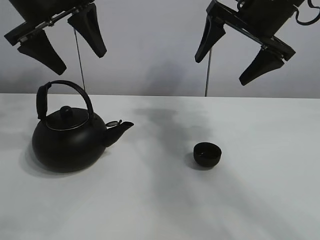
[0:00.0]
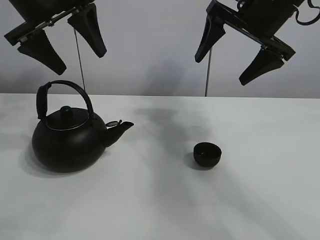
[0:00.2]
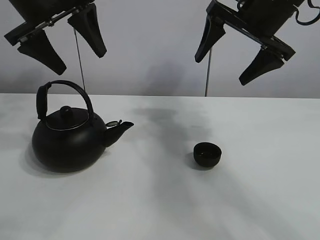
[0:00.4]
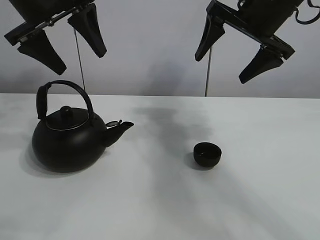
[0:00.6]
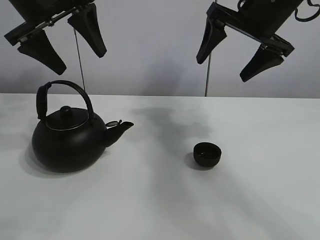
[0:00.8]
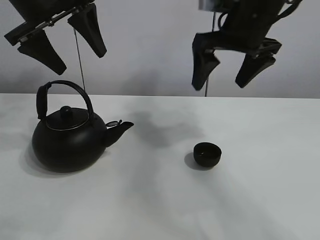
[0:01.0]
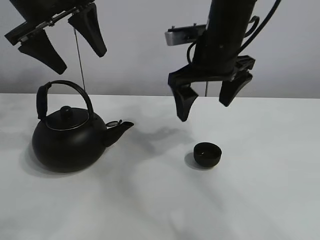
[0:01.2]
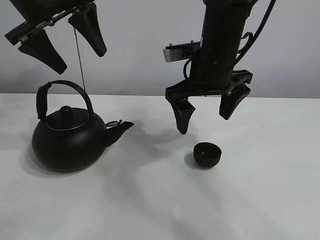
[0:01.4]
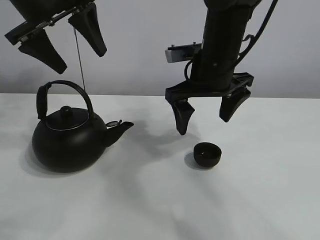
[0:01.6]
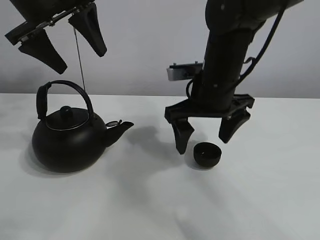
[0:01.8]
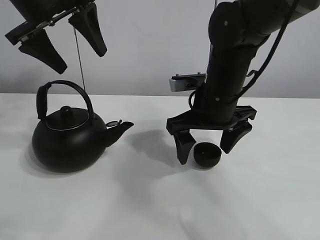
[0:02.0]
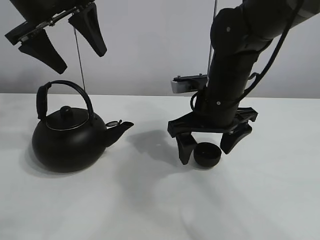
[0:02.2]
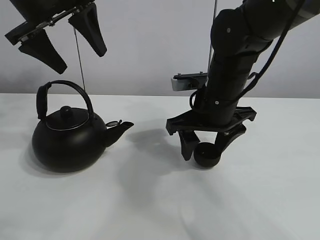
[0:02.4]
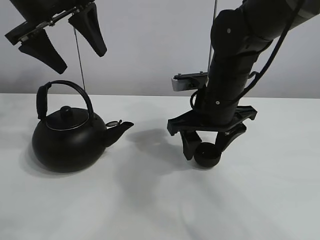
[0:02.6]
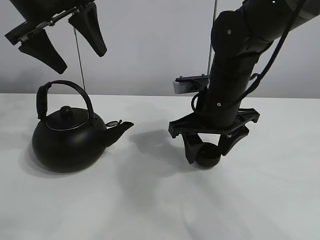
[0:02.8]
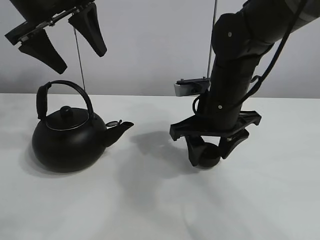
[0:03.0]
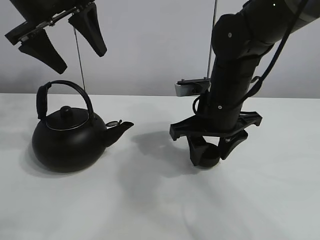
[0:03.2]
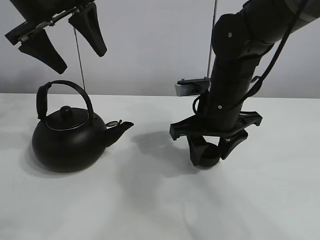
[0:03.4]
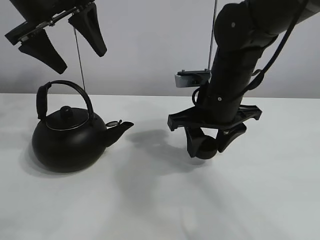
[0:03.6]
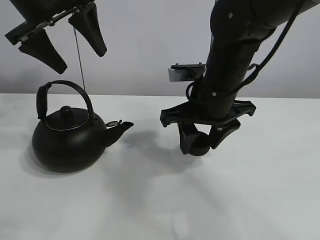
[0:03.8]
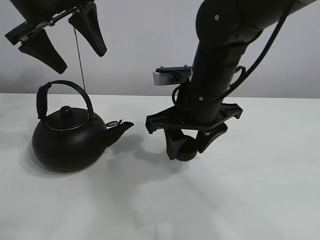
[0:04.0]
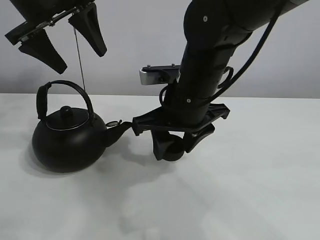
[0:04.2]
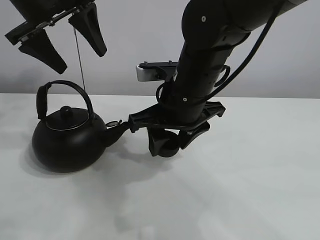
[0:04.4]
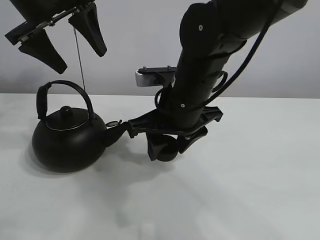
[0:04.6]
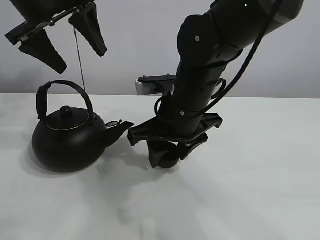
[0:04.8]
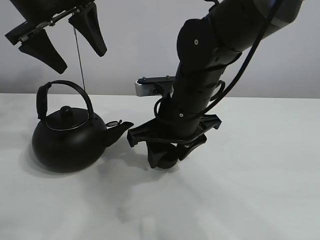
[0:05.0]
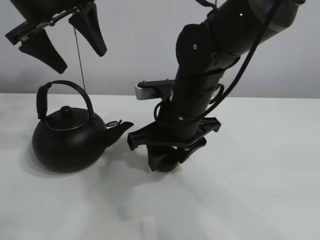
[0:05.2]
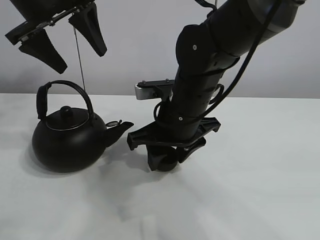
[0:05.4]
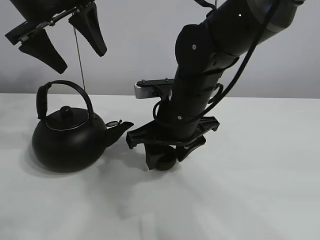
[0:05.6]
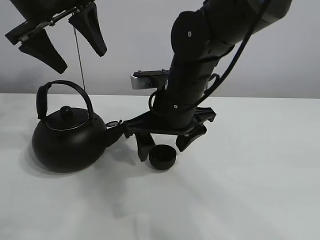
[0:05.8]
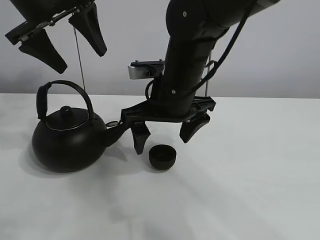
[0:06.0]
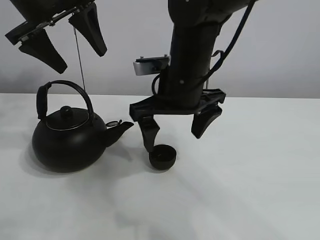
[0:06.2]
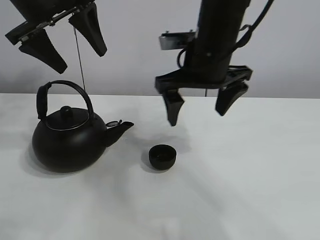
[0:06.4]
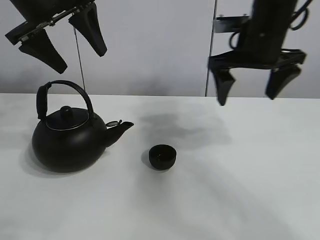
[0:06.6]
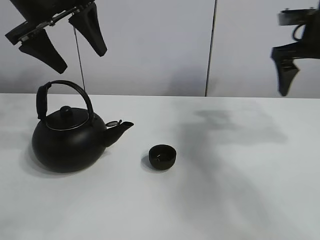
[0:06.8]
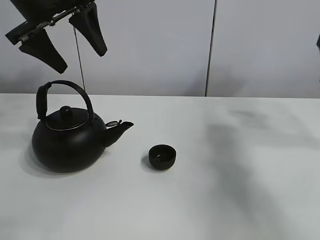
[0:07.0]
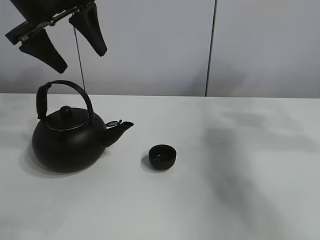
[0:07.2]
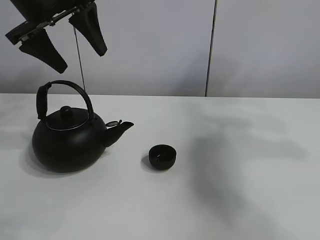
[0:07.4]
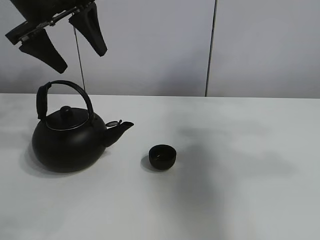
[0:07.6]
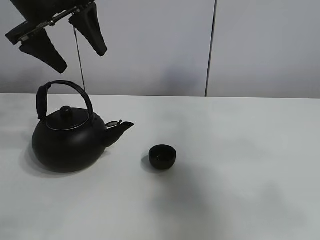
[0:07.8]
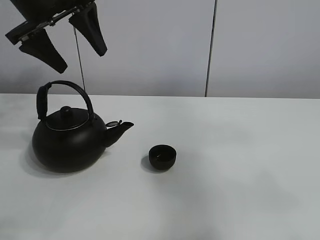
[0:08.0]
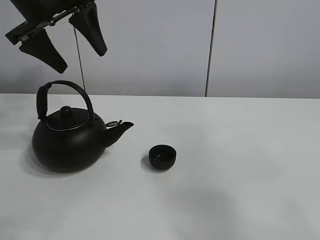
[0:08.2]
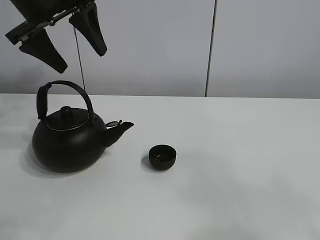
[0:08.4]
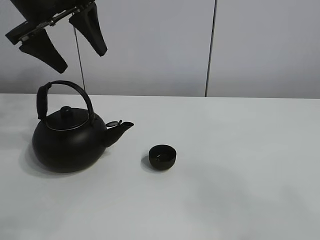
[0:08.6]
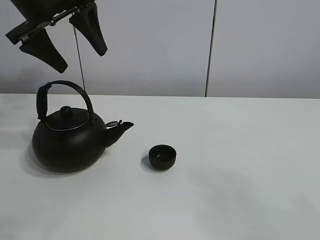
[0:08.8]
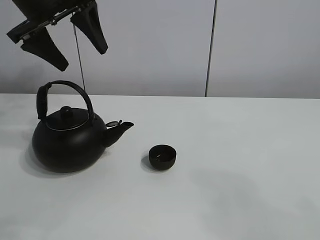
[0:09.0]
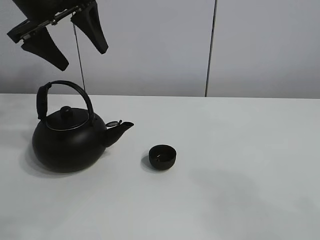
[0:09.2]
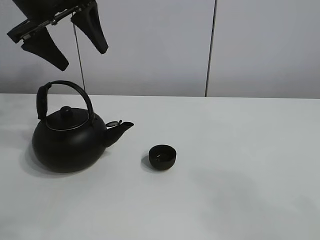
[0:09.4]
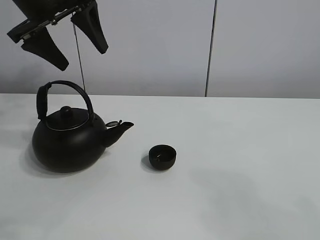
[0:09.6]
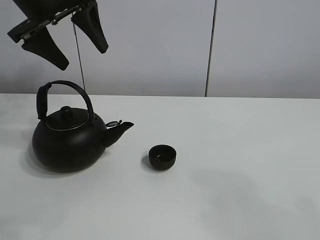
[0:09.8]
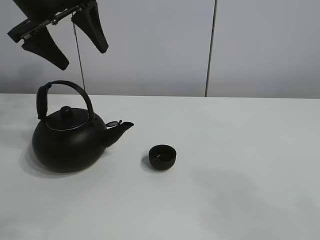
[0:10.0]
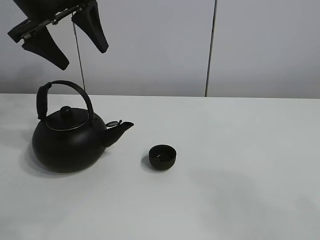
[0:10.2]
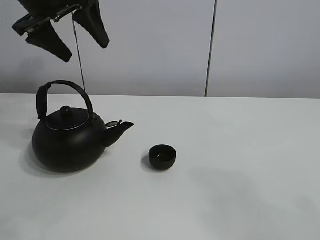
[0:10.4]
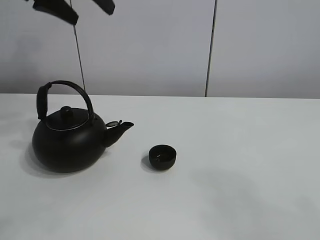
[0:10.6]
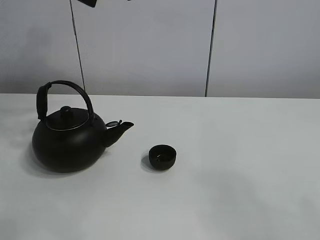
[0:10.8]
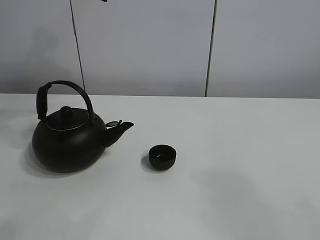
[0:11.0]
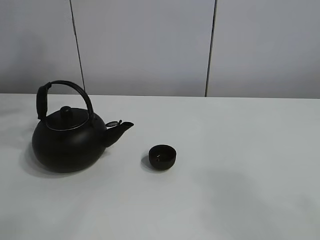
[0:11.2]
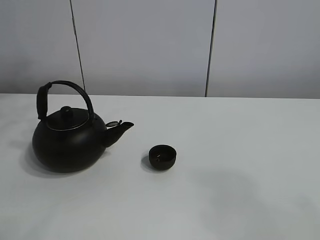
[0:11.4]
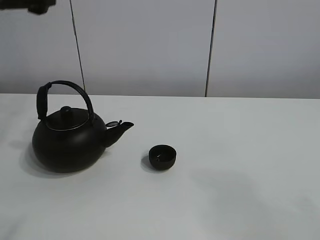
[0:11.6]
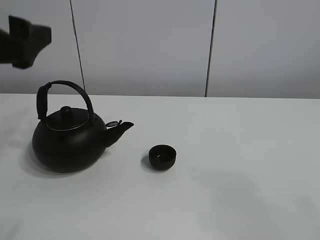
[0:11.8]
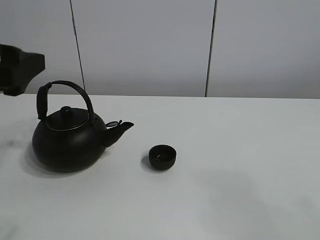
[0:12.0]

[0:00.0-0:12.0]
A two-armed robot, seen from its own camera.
Task of the whole recording: pour tea into the teacup.
Step, 0:00.0 to 0:03.4: Pick up the teacup with the right gripper.
Step, 0:03.6 to 0:05.6: Place the teacup in the center of view with the right gripper.
0:01.6 to 0:03.0: The right gripper moves downward, about 5 cm, and closes.
0:03.0 to 0:04.4: The right gripper heads to the left, covering about 5 cm.
0:04.4 to 0:06.0: The right gripper opens its fingers.
0:06.0 to 0:07.6: The right gripper travels to the right and upward by some 40 cm.
0:07.6 to 0:09.0: The right gripper heads backward and downward, covering about 30 cm.
0:09.0 to 0:10.4: The grippers stay close to where they were, moving slightly.
0:10.4 to 0:12.0: The left gripper heads backward and downward, covering some 20 cm.

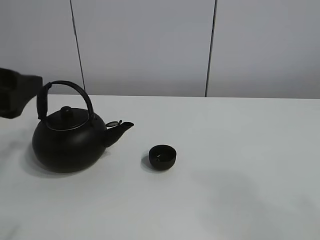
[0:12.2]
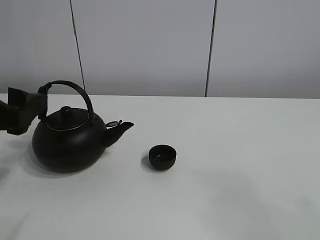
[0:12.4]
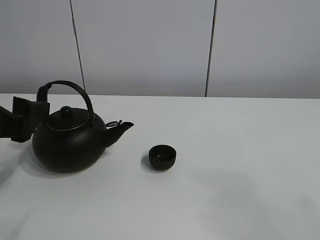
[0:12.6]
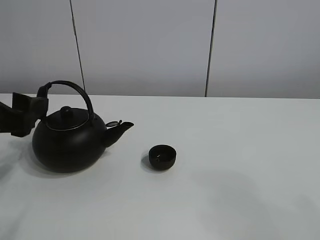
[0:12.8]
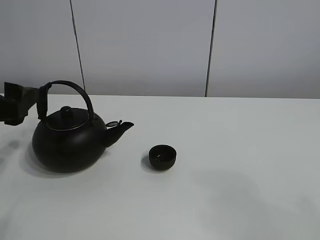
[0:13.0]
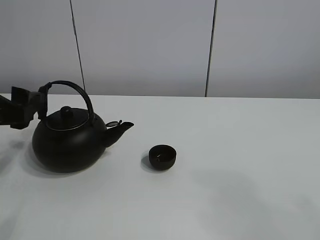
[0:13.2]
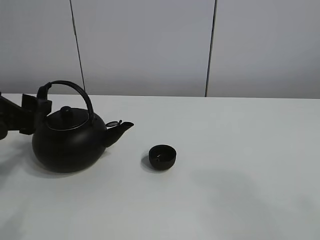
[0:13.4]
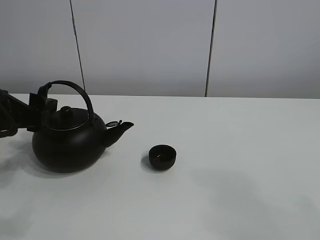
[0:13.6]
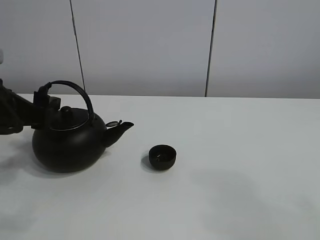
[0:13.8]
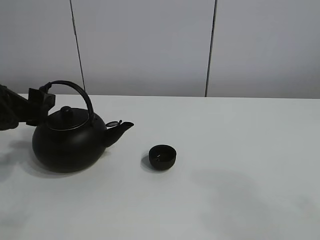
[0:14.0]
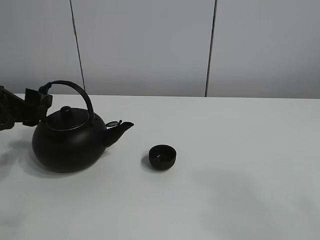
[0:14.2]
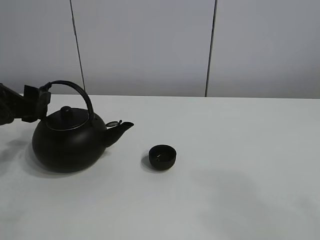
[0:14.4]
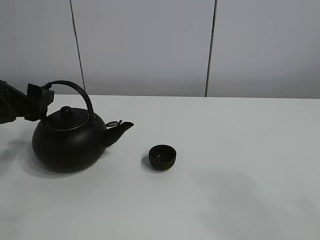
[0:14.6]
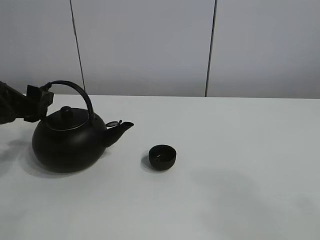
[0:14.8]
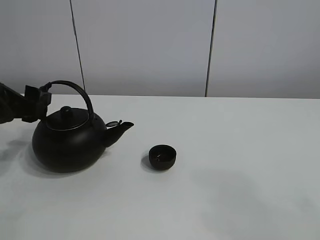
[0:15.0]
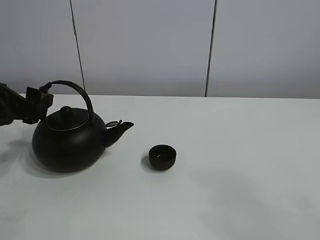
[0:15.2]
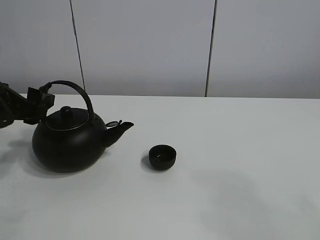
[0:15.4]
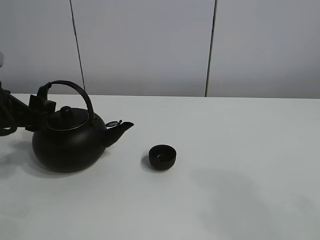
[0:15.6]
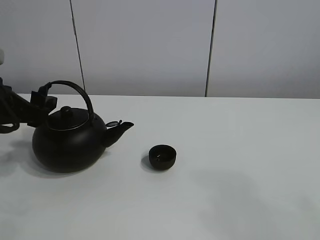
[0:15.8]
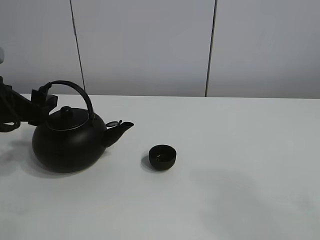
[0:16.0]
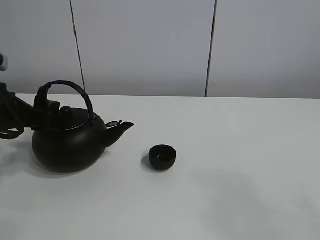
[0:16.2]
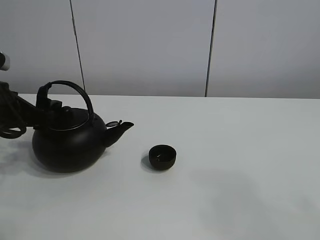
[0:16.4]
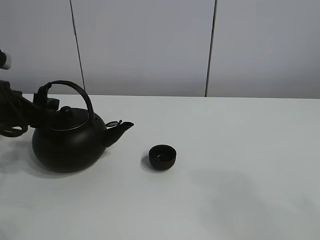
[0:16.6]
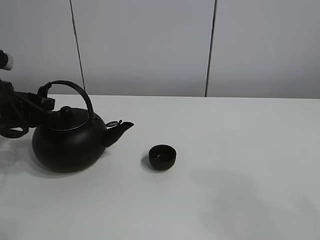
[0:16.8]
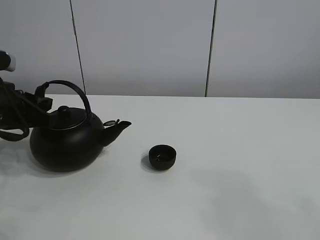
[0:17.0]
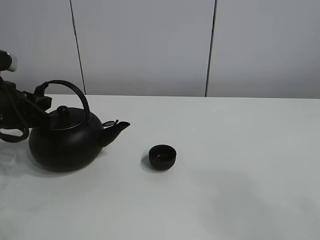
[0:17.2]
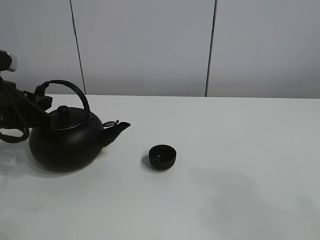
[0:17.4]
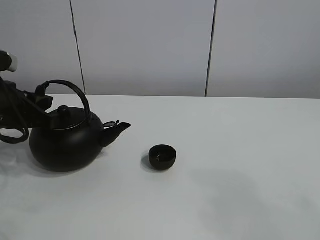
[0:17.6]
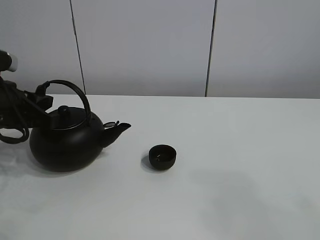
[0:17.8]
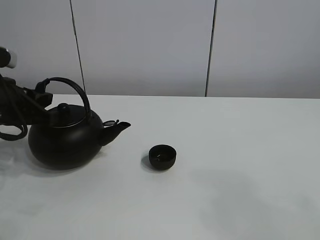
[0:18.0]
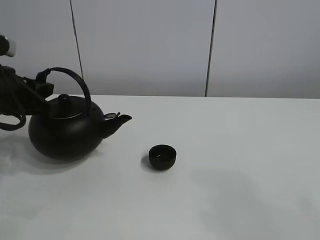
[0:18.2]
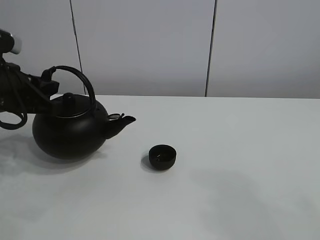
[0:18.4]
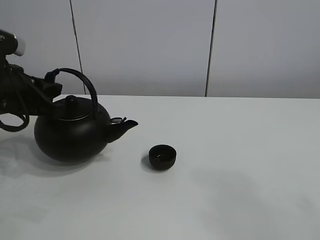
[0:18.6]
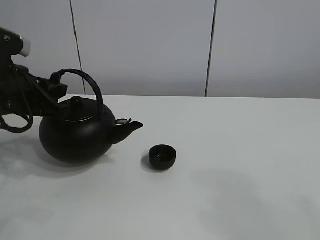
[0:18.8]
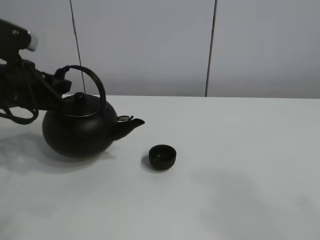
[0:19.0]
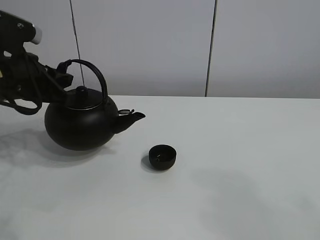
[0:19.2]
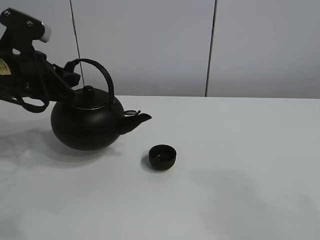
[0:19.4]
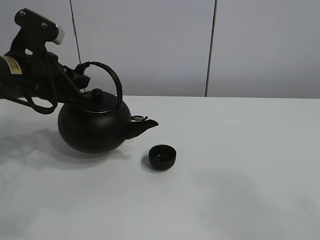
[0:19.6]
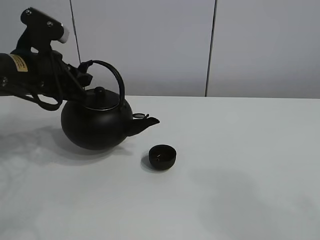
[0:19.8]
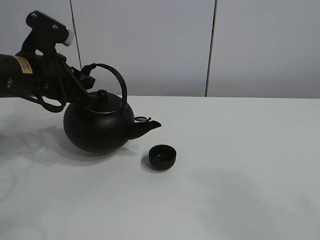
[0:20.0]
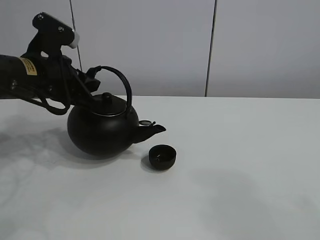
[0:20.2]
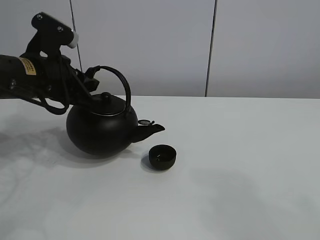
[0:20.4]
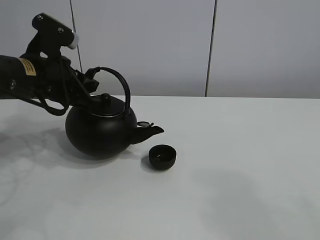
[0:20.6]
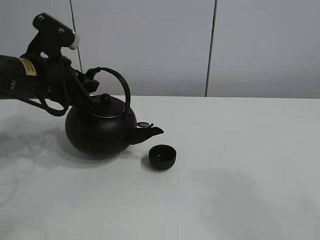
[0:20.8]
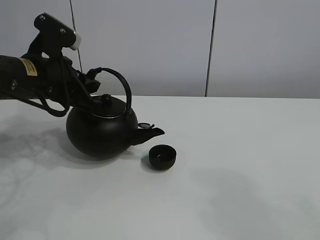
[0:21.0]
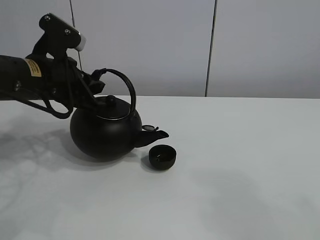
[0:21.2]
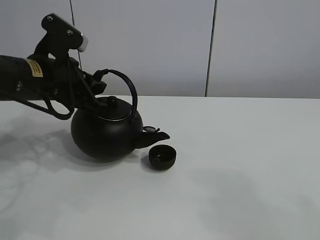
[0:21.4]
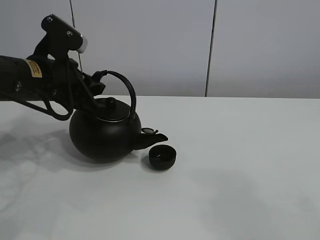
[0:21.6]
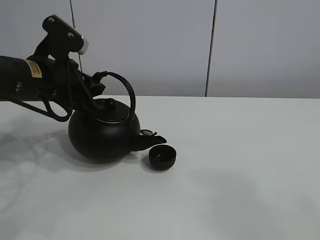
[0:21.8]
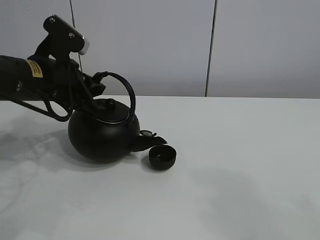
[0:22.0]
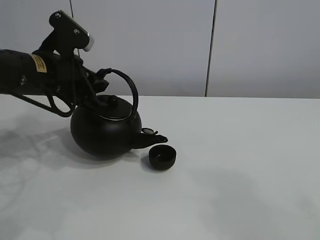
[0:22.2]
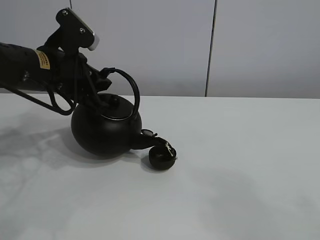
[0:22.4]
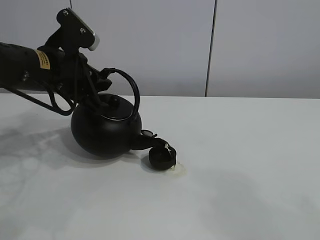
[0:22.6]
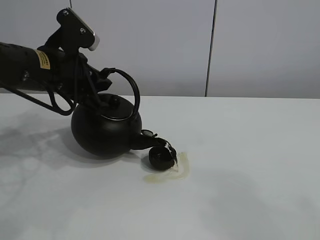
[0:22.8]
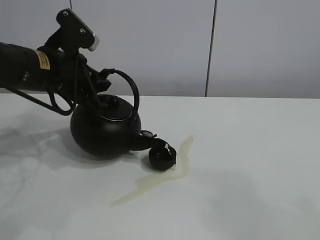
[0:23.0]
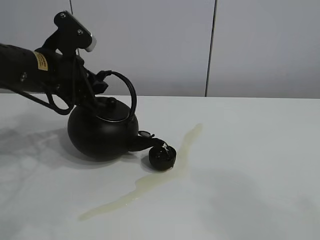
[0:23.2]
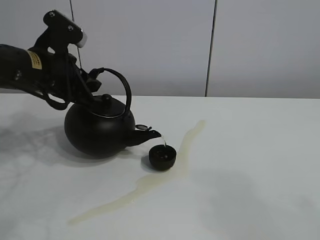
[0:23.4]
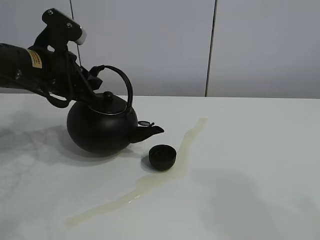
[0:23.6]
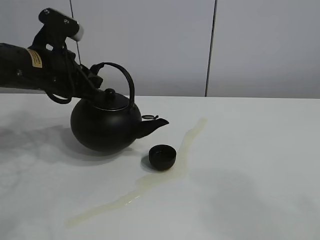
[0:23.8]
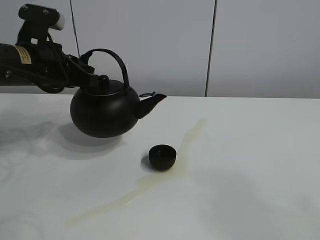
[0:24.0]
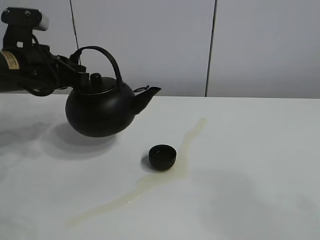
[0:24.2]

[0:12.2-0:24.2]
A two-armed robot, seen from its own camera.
Task of the whole recording: pour tea into the teacup.
Step, 0:12.2 to 0:18.0: Pick up the teapot with the left gripper.
Step, 0:18.2 to 0:23.4: Pour tea into the teacup with the left gripper.
0:12.2 to 0:13.8: The left gripper travels forward by some 5 cm.
0:13.8 to 0:16.6: There are only small adjustments of the grippers.
0:16.6 to 0:18.2: The left gripper closes its fingers.
0:18.2 to 0:19.8: The left gripper travels to the right by some 5 cm.
0:19.8 to 0:22.6: There are only small adjustments of the grippers.
